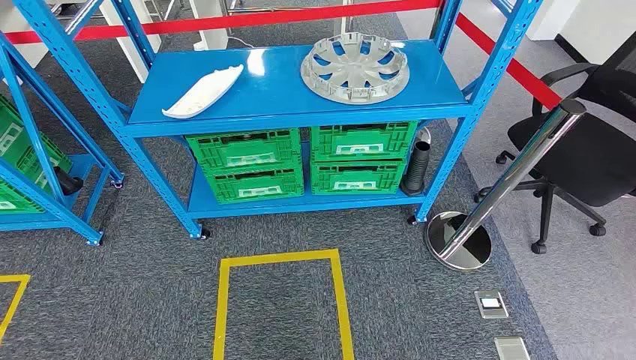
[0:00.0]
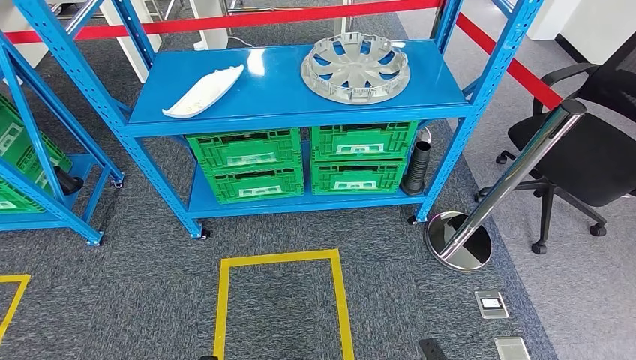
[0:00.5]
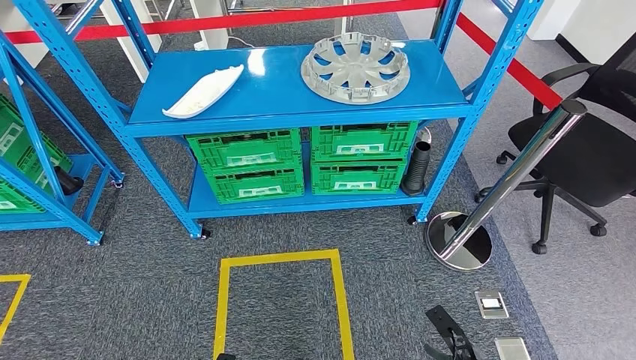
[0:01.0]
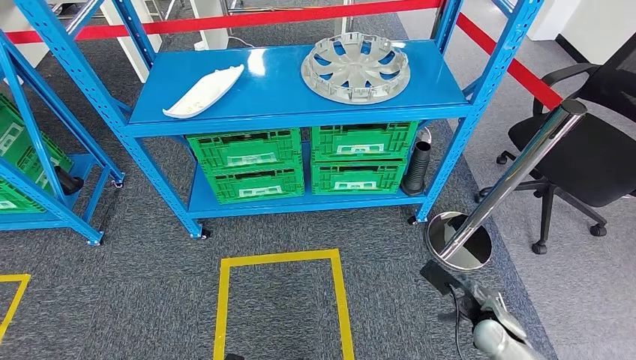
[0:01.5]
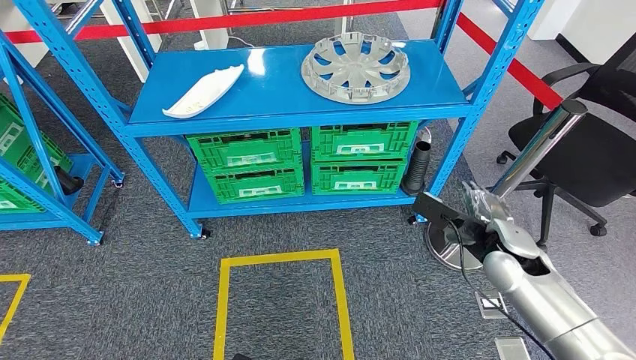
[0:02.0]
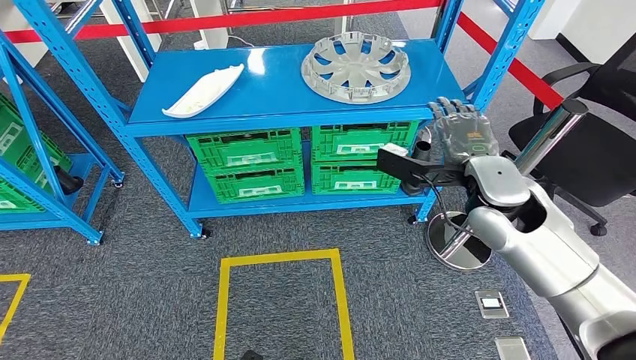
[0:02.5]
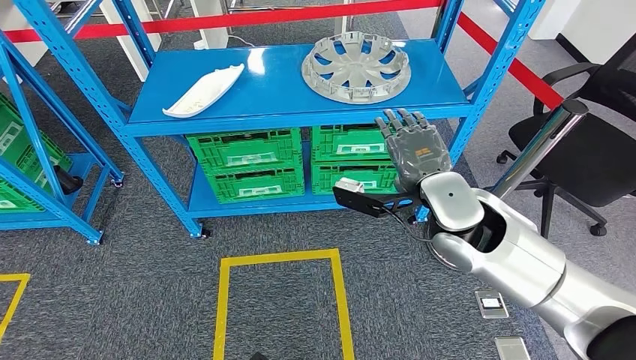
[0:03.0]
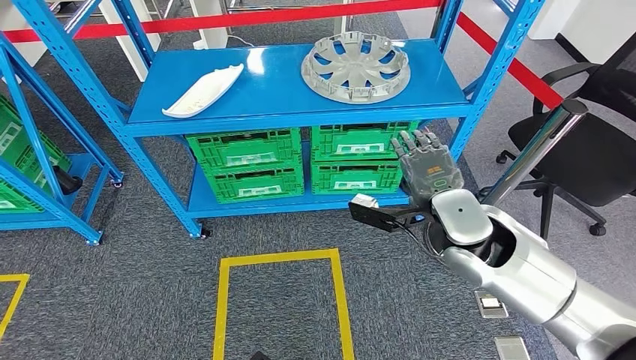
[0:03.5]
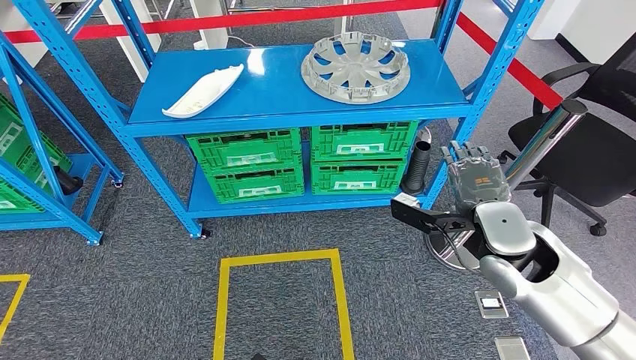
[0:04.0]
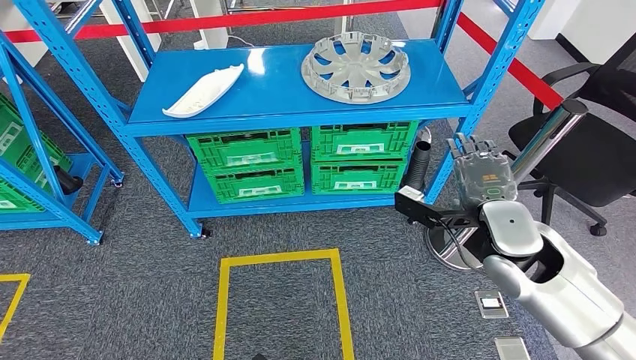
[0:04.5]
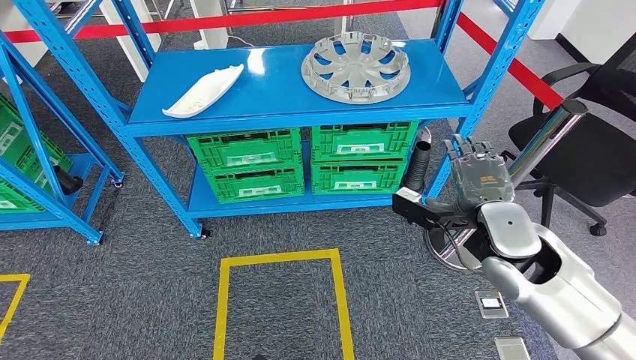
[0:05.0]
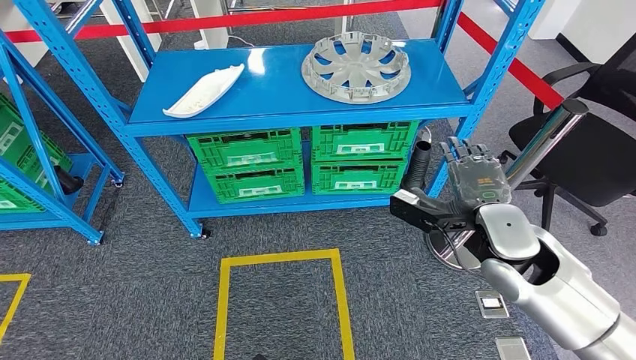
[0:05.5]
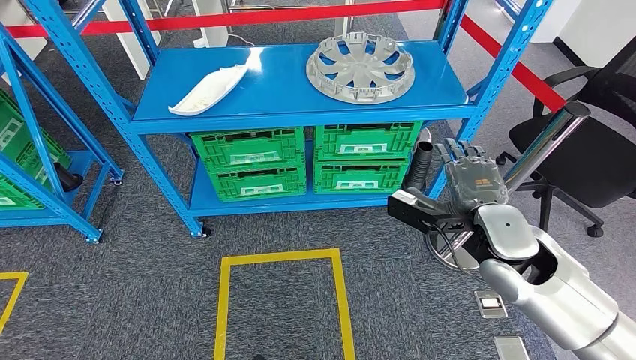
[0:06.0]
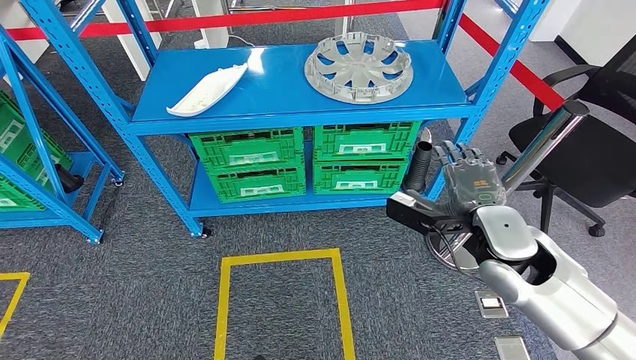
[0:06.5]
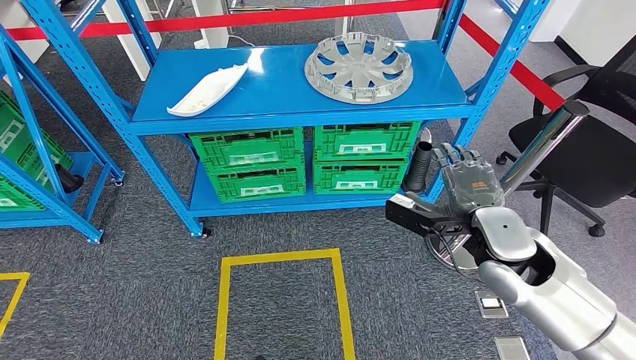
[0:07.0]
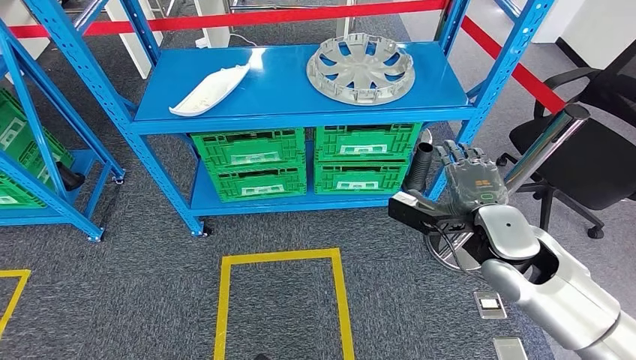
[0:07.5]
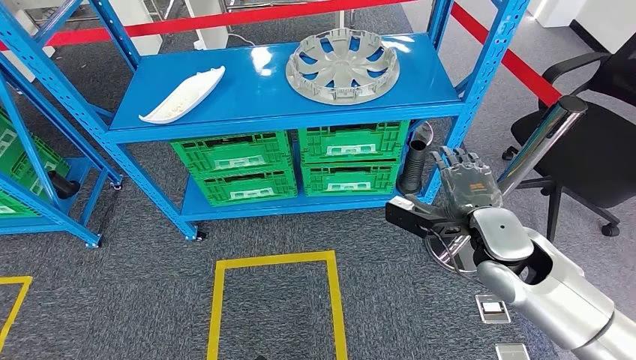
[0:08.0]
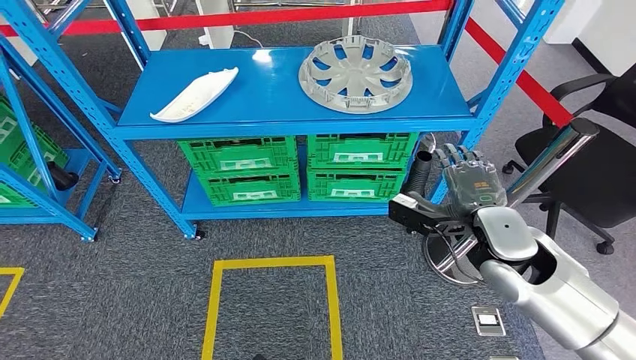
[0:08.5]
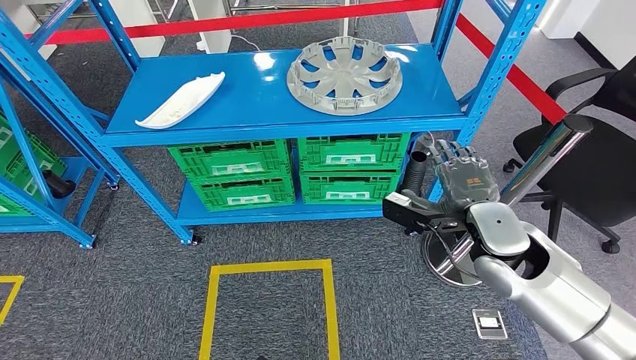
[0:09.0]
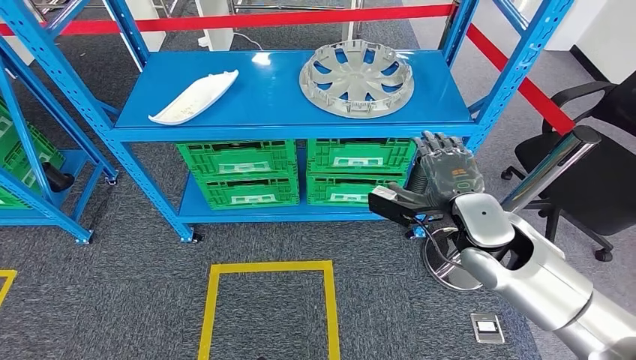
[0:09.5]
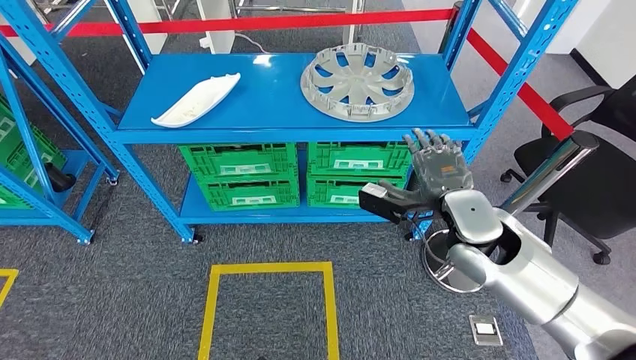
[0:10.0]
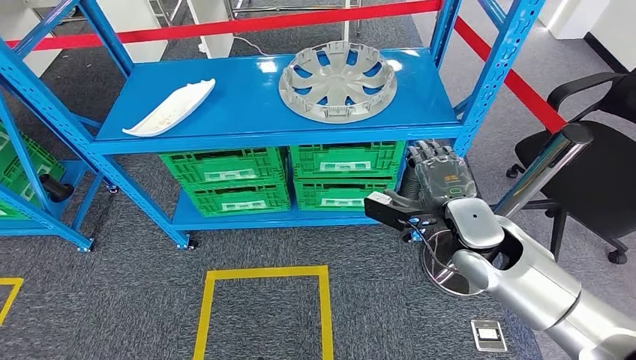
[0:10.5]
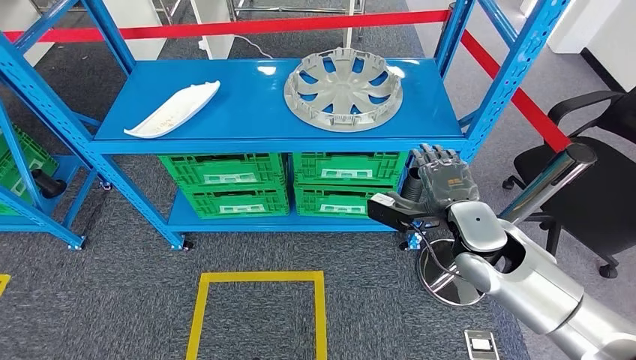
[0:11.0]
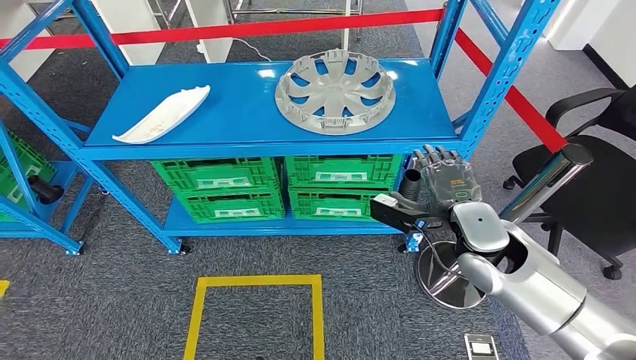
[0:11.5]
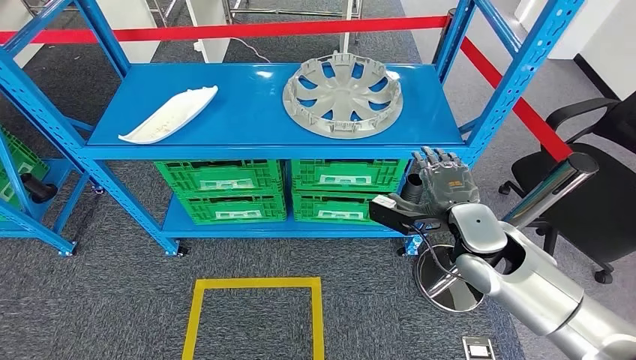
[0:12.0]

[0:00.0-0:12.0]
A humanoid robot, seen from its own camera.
0:02.0 to 0:04.0: The right hand heads upward and to the left, covering about 10 cm.
0:04.0 to 0:06.0: The hands make only small movements.

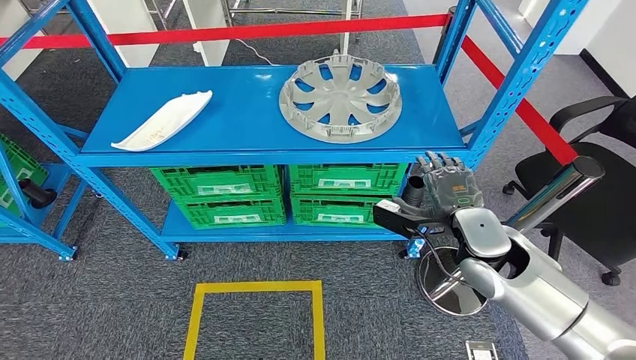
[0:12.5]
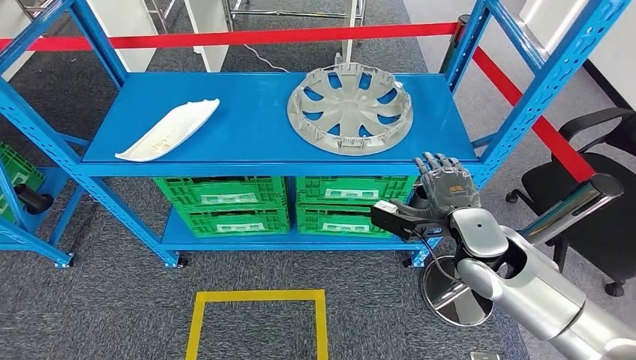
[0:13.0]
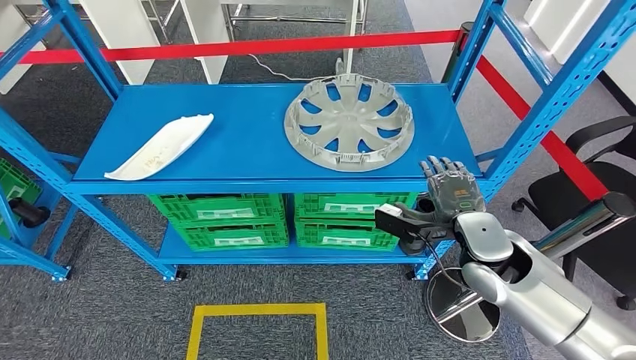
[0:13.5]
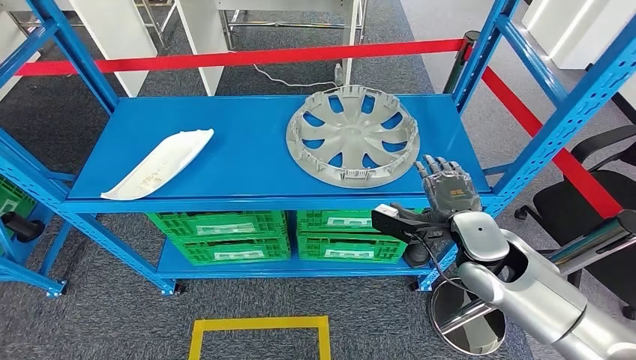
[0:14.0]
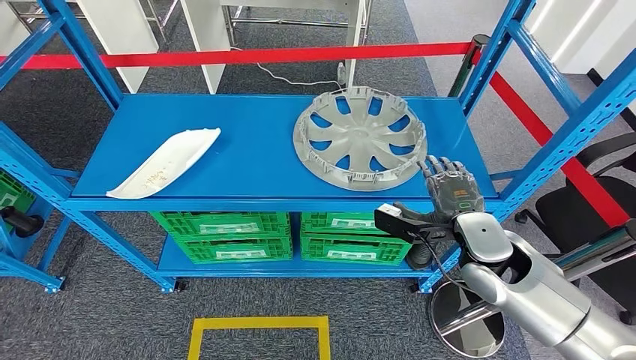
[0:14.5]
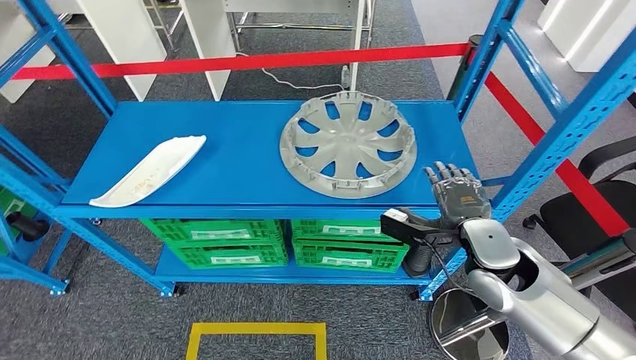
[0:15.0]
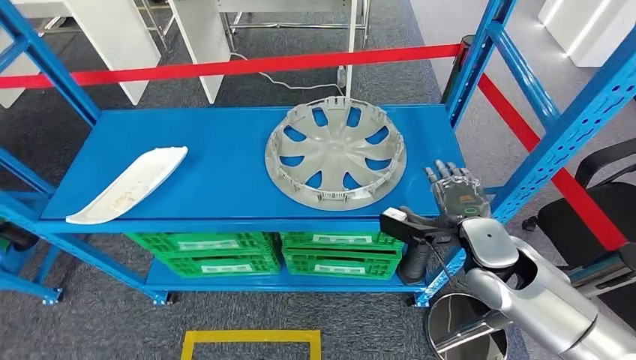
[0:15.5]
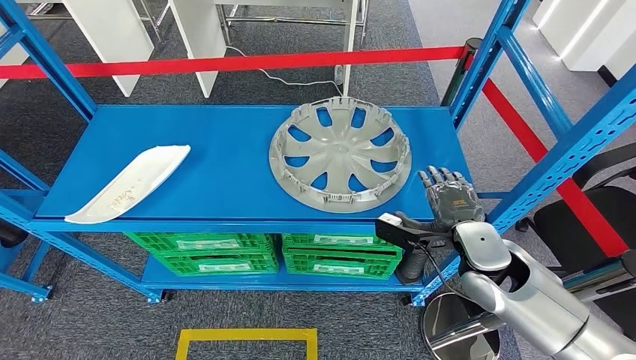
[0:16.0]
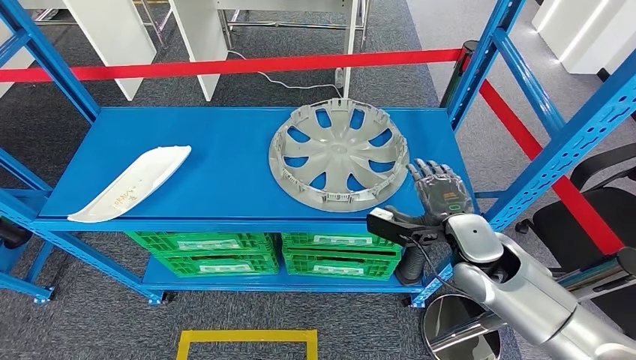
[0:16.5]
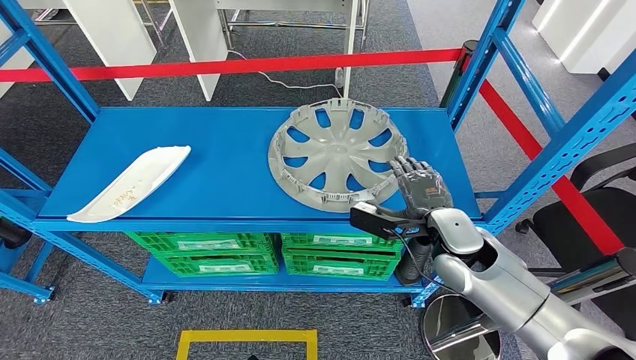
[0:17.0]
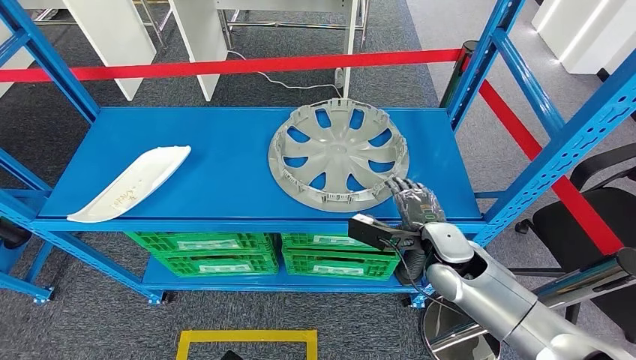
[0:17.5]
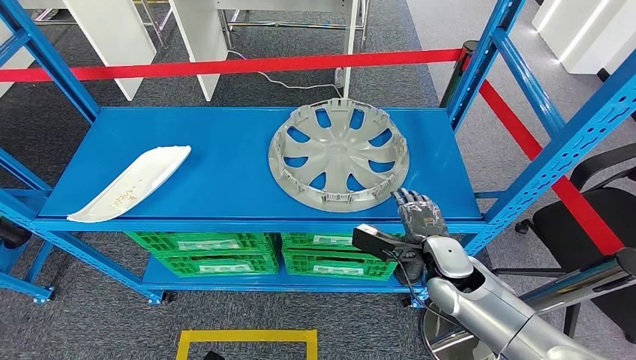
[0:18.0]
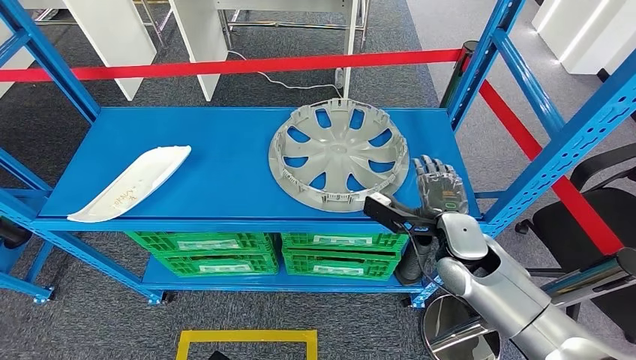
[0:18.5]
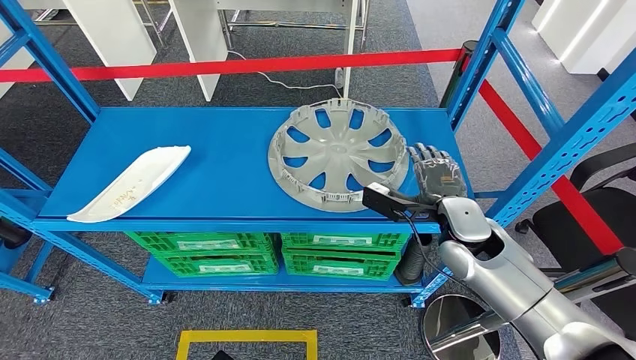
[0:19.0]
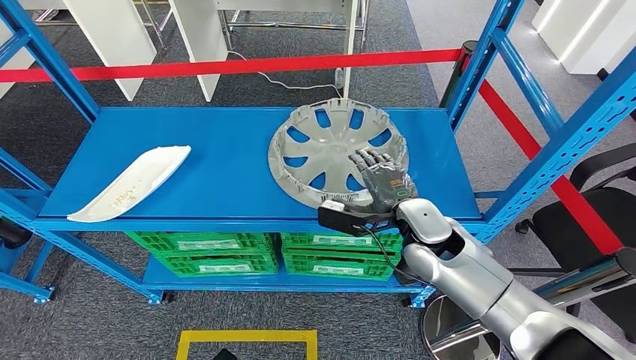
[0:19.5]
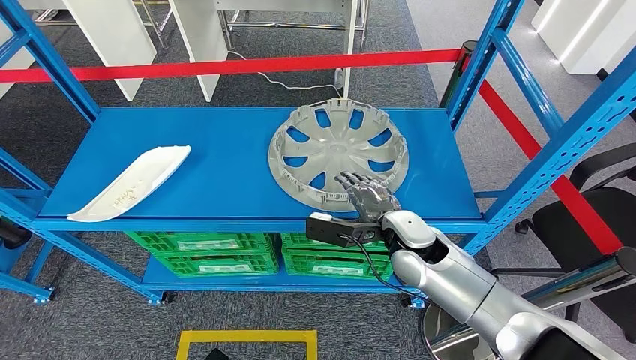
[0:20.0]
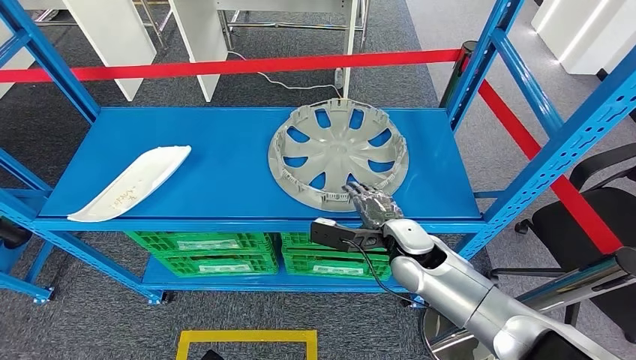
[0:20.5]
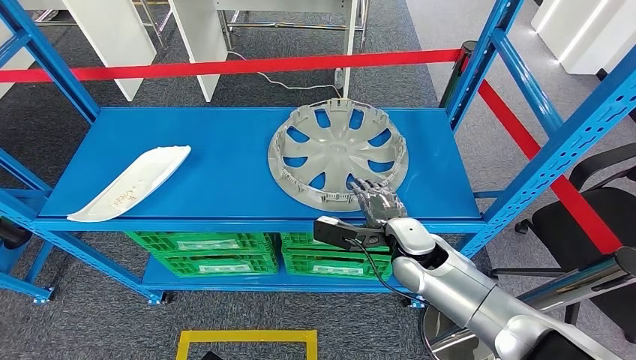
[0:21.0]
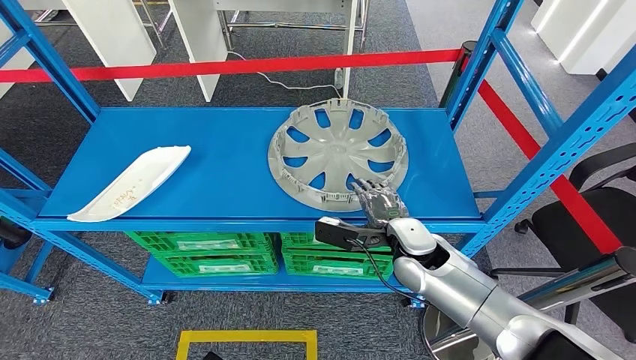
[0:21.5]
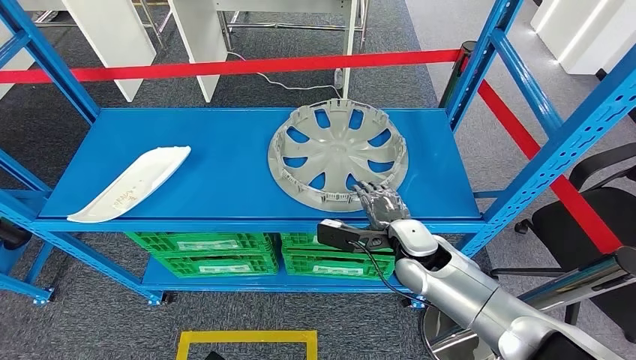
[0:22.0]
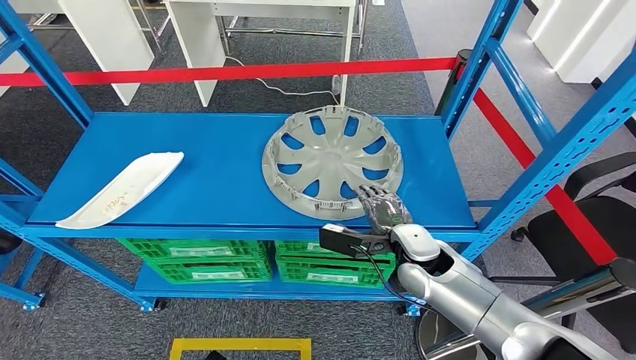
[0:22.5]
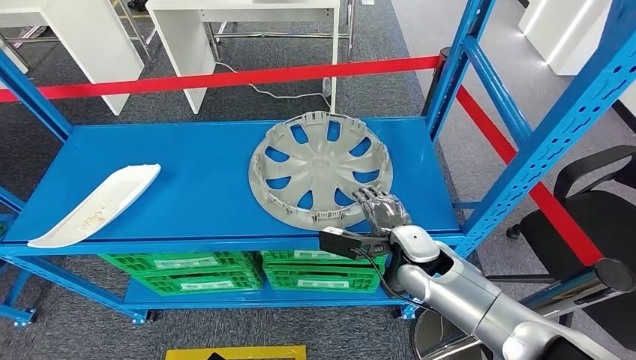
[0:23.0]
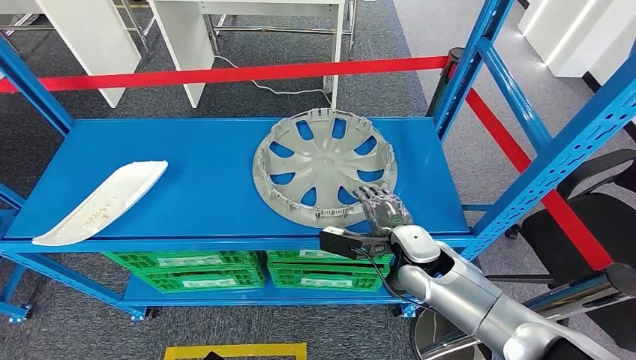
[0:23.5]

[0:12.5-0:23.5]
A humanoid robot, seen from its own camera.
0:16.0 to 0:18.0: The left hand travels to the left by about 5 cm. The right hand shifts some 5 cm downward.
0:18.0 to 0:20.0: The right hand travels to the left by some 5 cm.
0:20.0 to 0:21.5: The hands stay close to where they were, moving slightly.
